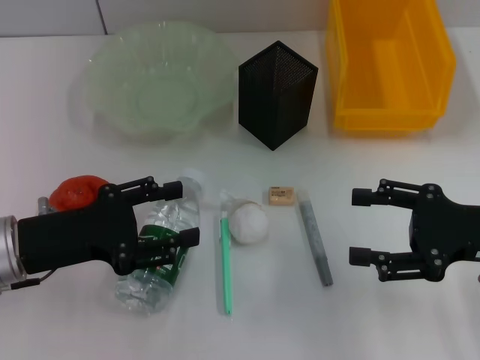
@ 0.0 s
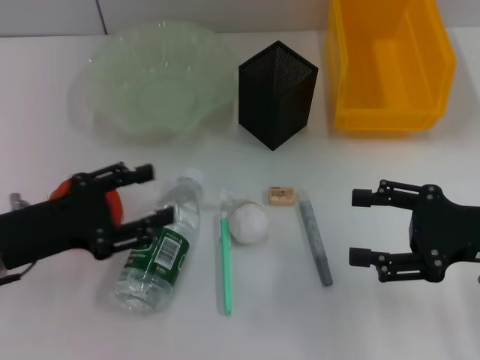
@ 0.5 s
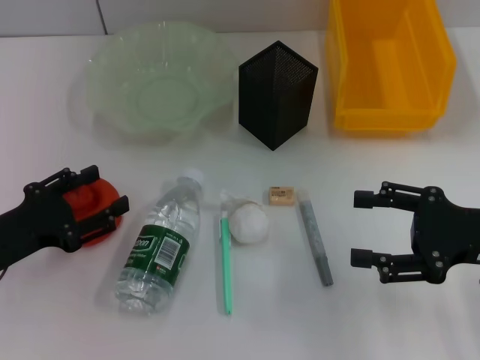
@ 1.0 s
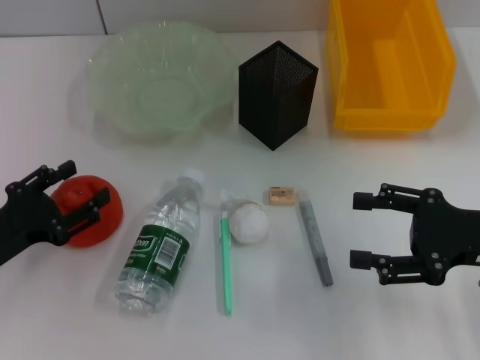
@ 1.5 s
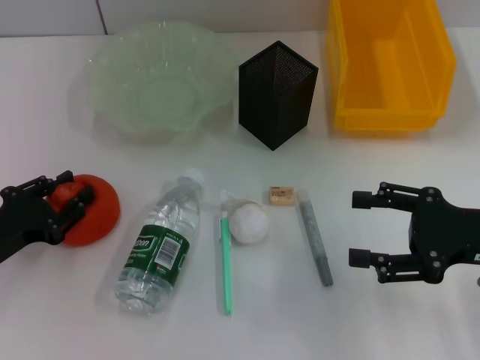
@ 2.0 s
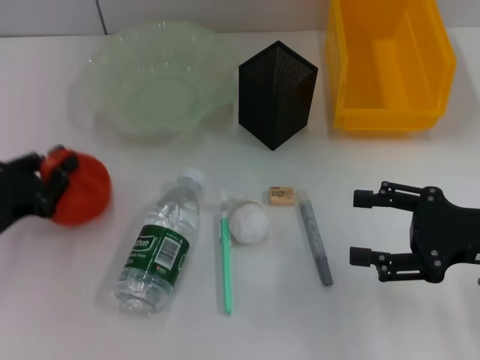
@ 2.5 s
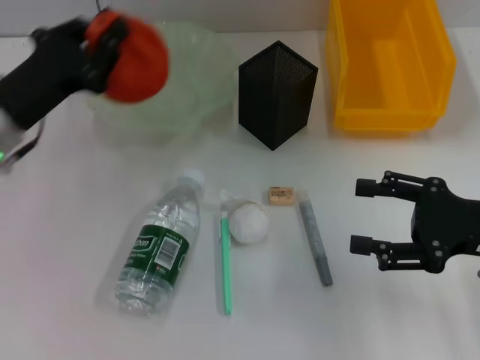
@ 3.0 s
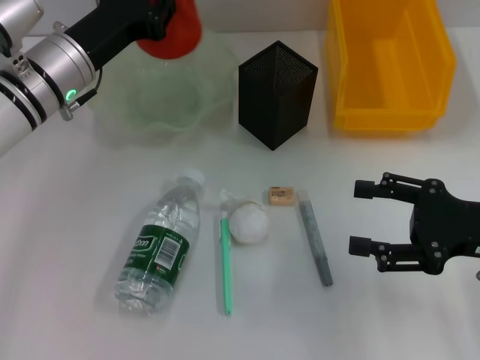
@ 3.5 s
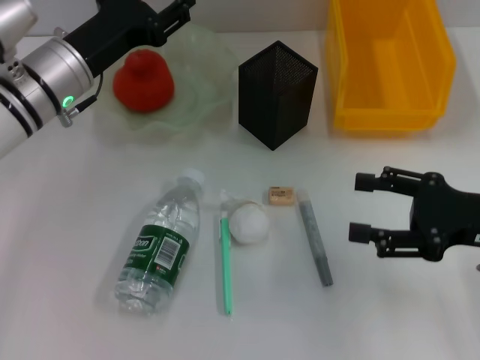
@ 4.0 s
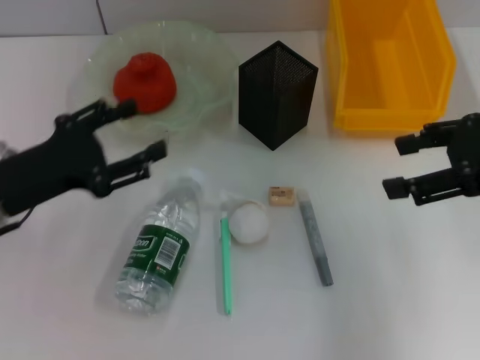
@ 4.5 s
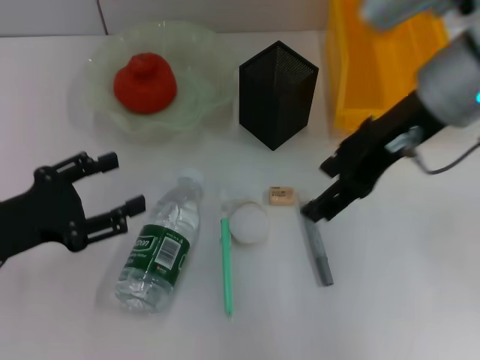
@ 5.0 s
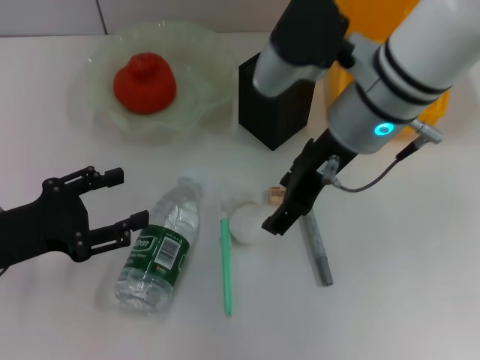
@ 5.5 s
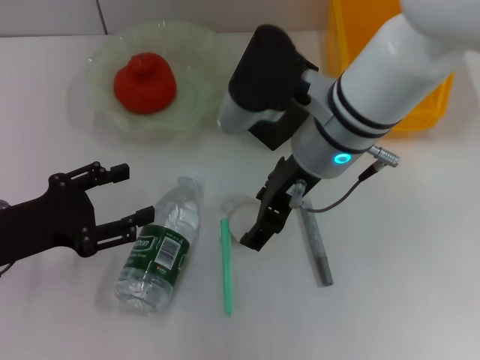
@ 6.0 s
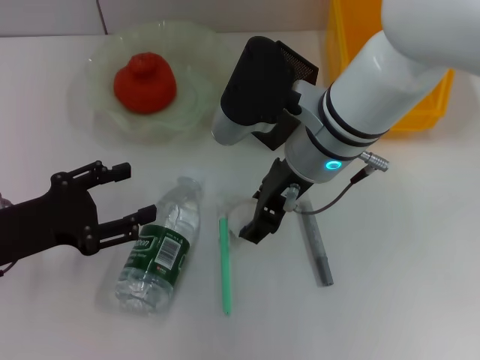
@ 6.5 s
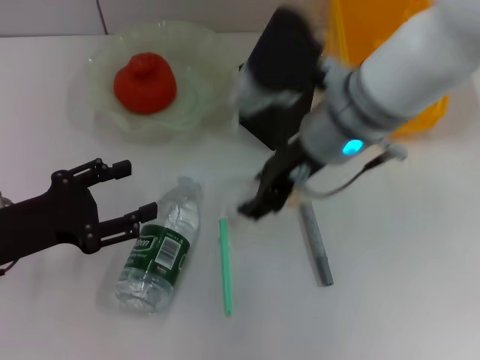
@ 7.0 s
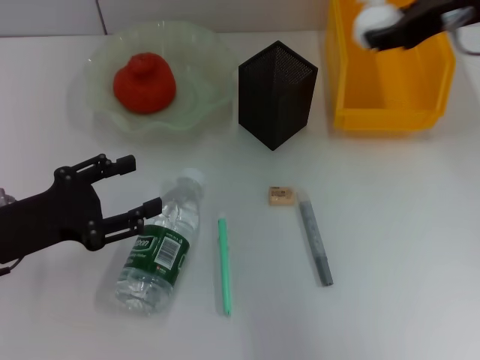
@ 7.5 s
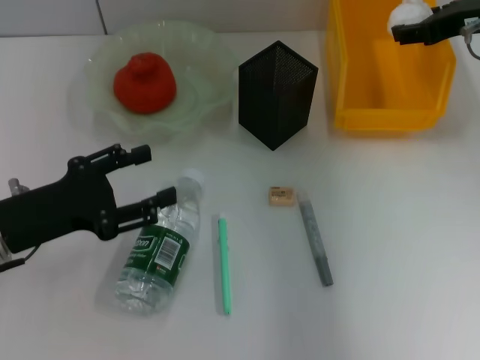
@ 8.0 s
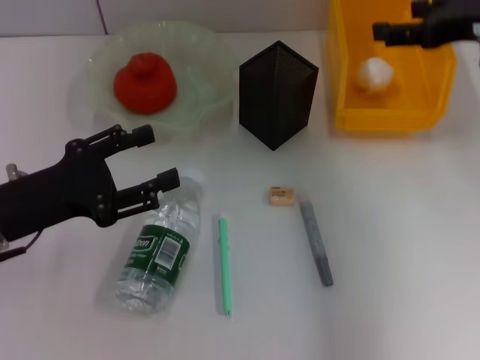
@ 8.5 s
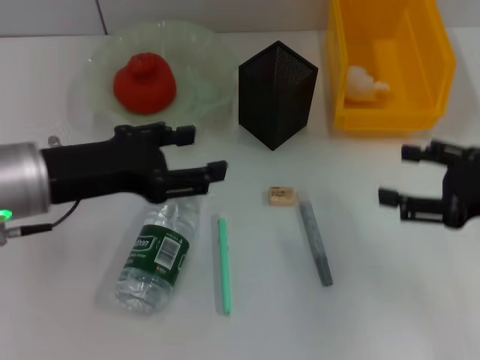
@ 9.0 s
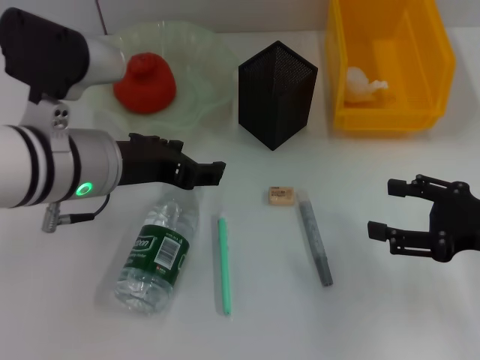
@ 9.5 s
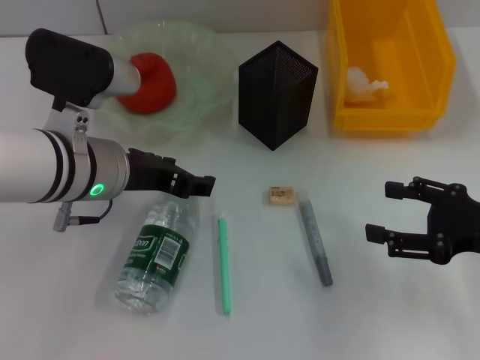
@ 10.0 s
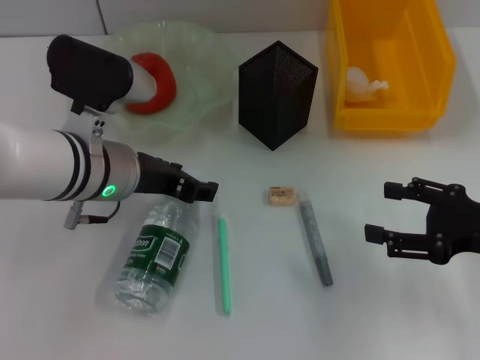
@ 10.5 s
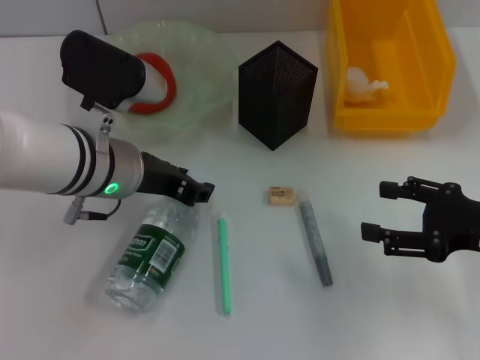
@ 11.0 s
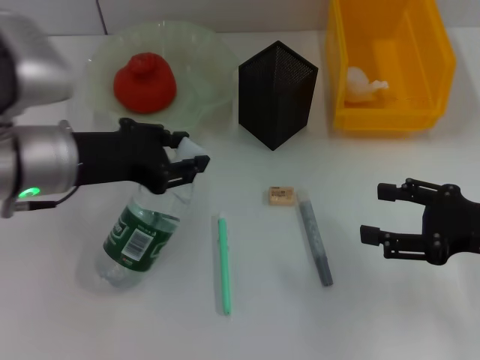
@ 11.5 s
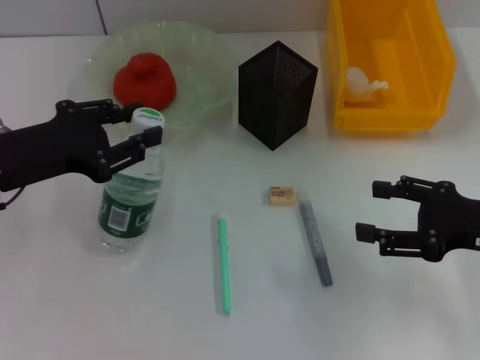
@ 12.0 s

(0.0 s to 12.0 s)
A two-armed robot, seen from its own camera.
Step, 0.0 s - 2.0 s: Grab the orange with the left hand.
Step, 2.5 s - 4.0 s: Place the orange into the fruit bowl with the left hand.
Step, 4.5 s - 6.5 s: Grab the paper ball with the right hand.
Step, 7.0 s - 8.0 s: Place the paper ball into the trash can with the right hand.
Step, 8.5 s - 10.5 s: Grab the water bottle with the left hand.
0.0 s - 2.0 s: The left gripper heads to the left and downward, covering roughly 10 cm.
2.0 s - 4.0 s: The left gripper goes roughly 20 cm forward, to the right and upward, and closes and opens again.
4.0 s - 6.0 s: The right gripper goes approximately 20 cm to the left. The left gripper shifts about 15 cm backward and to the left, and opens its fingers.
6.0 s - 8.0 s: The right gripper goes approximately 20 cm to the right.
8.0 s - 10.0 s: The left gripper shifts about 15 cm to the right and forward; the right gripper goes approximately 20 cm backward and downward, and opens up.
10.0 s - 12.0 s: The left gripper travels to the left by roughly 10 cm, and closes up.

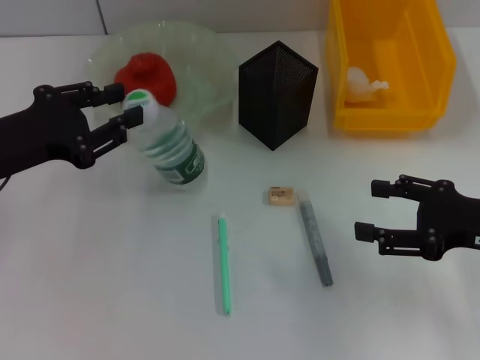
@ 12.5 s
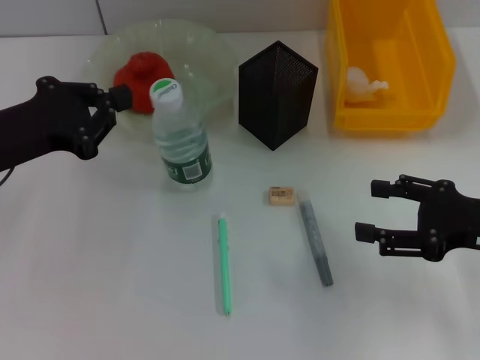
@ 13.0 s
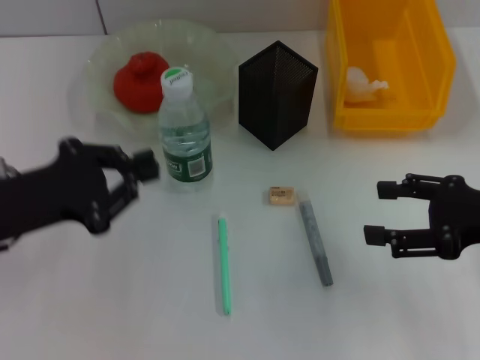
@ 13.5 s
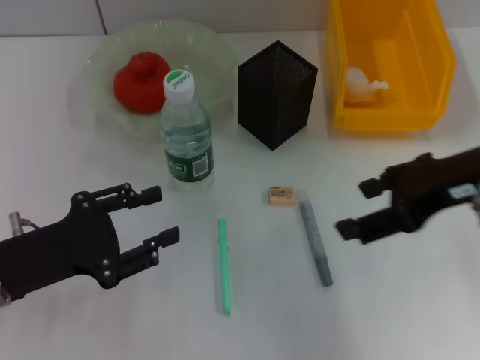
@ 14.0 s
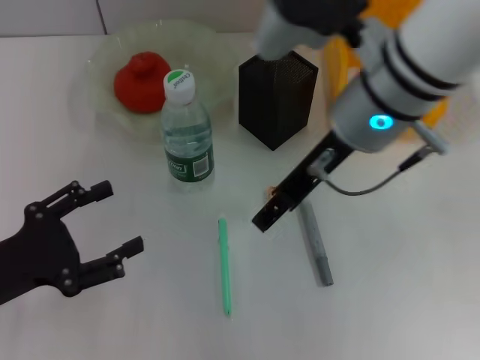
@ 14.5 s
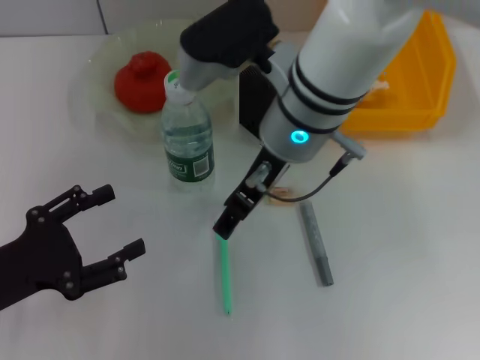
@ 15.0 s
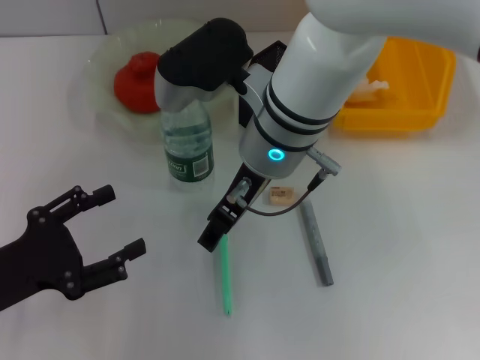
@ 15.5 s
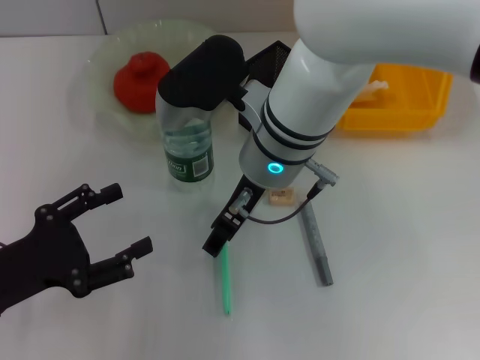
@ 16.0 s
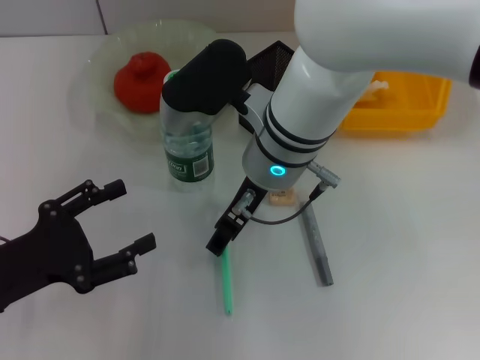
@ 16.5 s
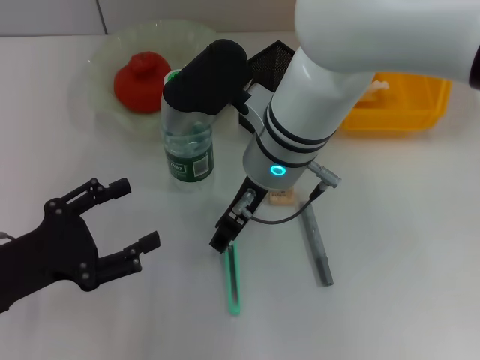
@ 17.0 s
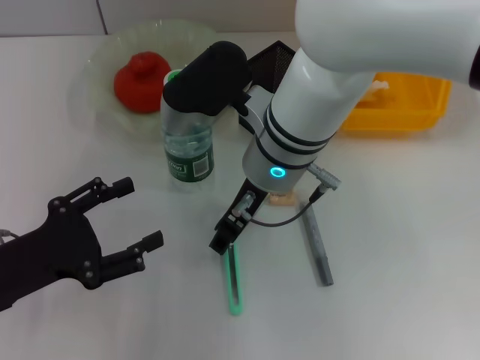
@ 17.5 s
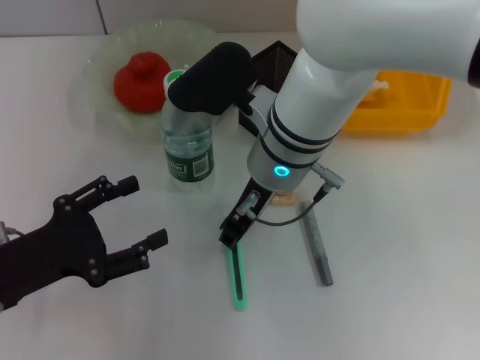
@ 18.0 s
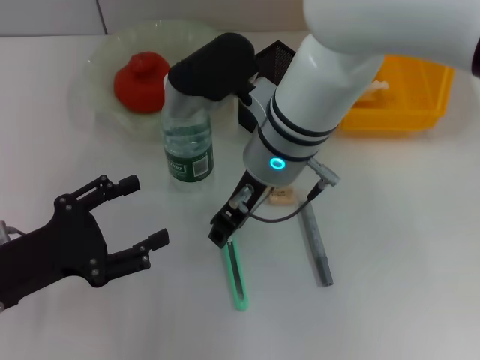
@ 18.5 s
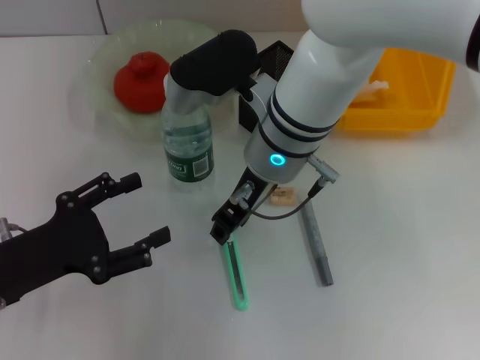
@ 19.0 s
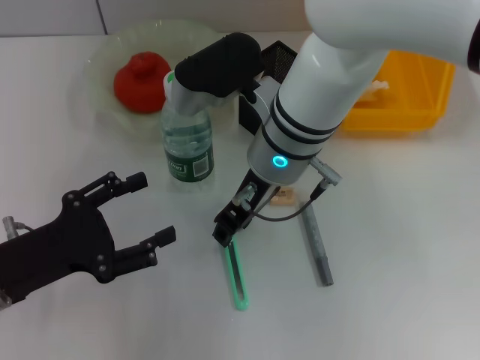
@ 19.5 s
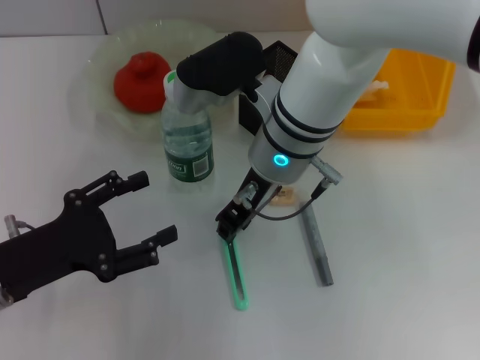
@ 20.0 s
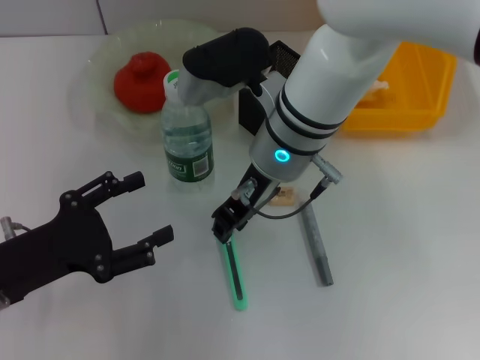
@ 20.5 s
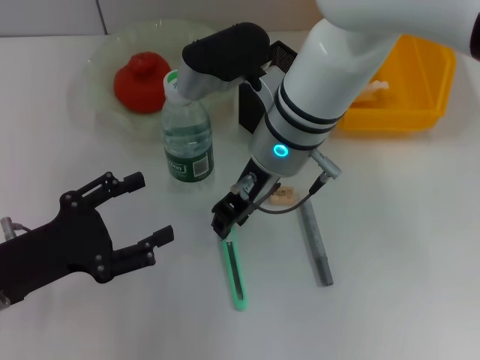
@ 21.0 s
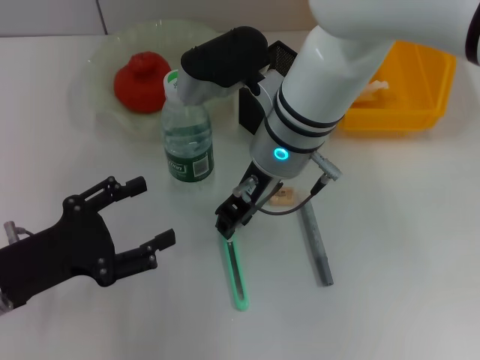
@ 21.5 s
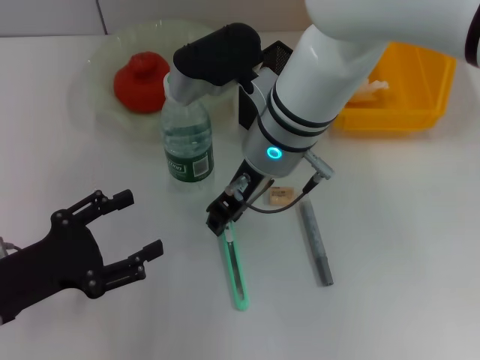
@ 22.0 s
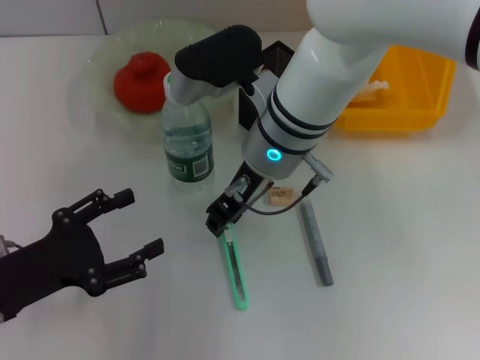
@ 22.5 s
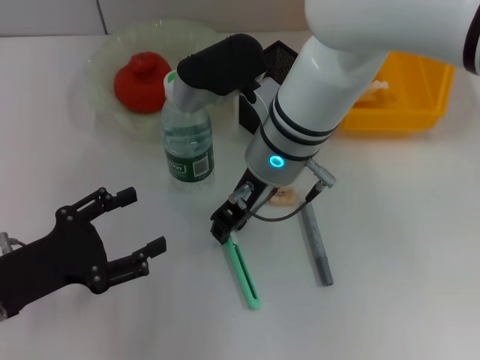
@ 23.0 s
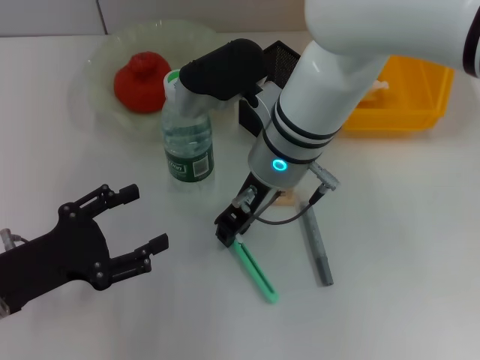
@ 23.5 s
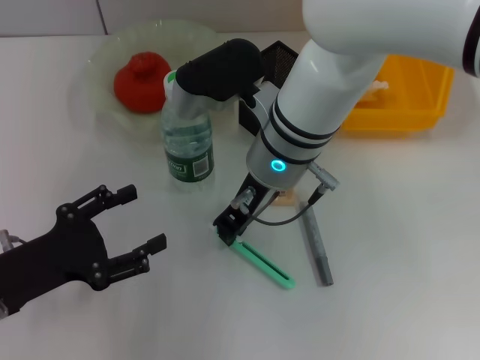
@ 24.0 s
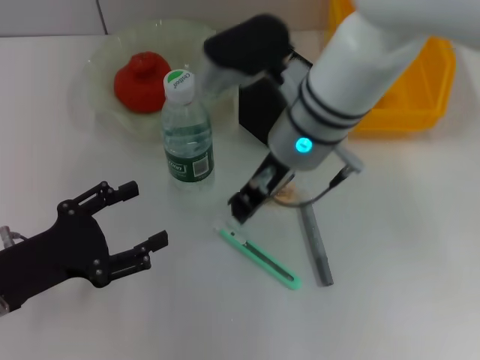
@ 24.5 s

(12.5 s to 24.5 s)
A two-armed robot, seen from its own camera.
12.5 s - 14.5 s: The right gripper travels to the left, upward and forward by some 25 cm, while the left gripper goes approximately 10 cm backward and downward, and opens its fingers.
14.5 s - 16.5 s: The right gripper travels to the left and downward by roughly 10 cm.
16.5 s - 18.5 s: The right gripper closes.
18.5 s - 24.5 s: There are only small adjustments of the grippers.

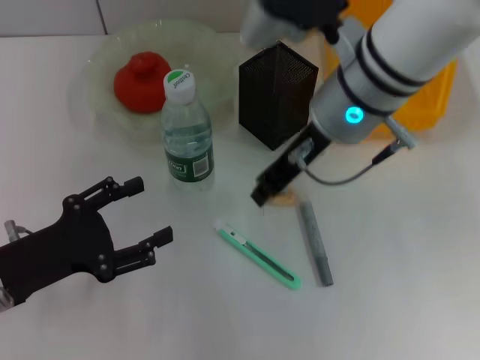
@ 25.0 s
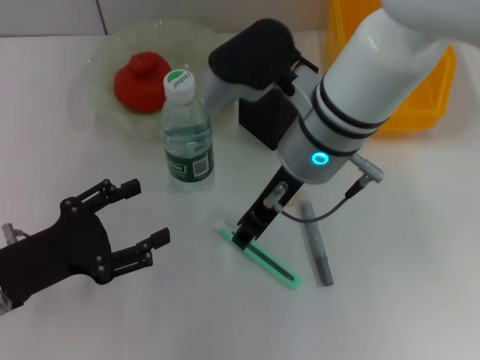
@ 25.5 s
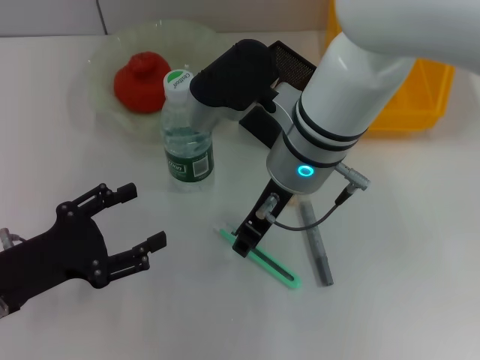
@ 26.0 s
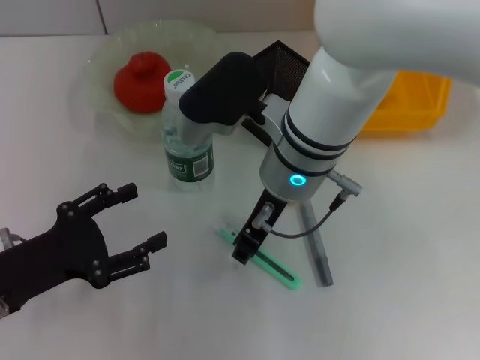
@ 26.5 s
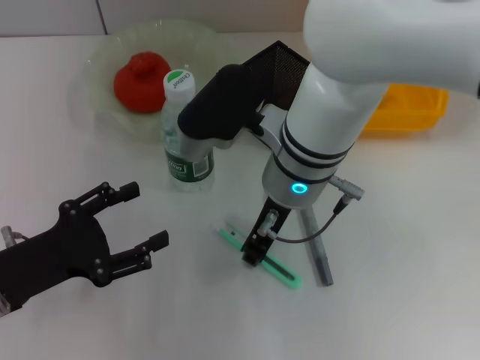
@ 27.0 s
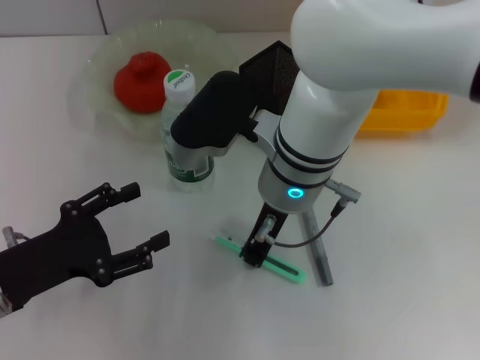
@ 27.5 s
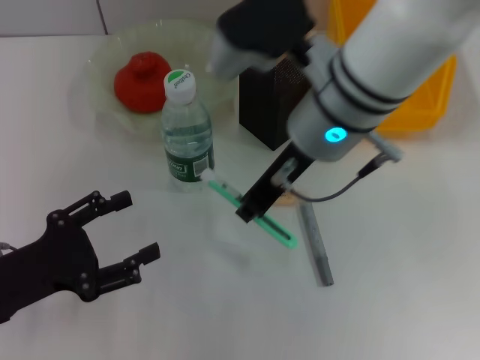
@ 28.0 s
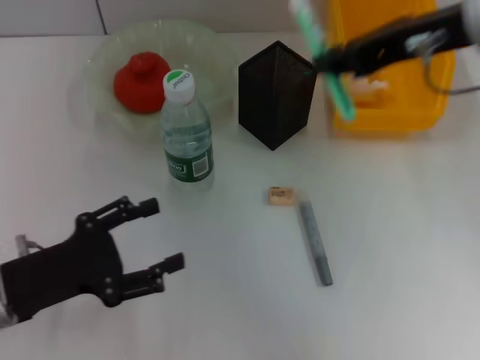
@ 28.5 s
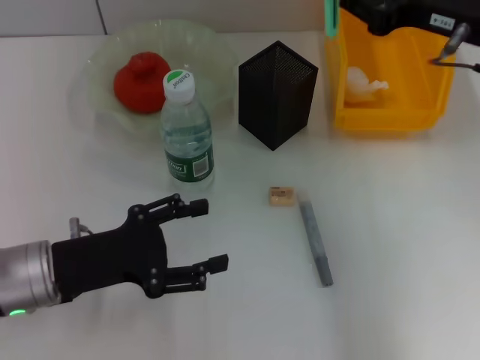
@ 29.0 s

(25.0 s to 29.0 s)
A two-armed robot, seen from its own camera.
Step, 25.0 s - 27.0 s: Grab the blue utility knife with the right hand.
25.0 s - 27.0 s: The right gripper goes roughly 10 cm downward and to the left.
27.0 s - 29.0 s: The right gripper is displaced to the right by about 20 cm.
